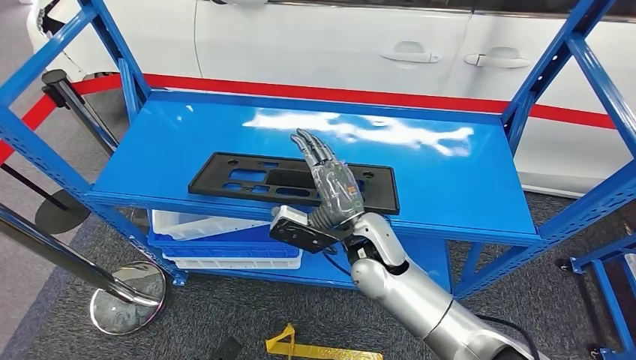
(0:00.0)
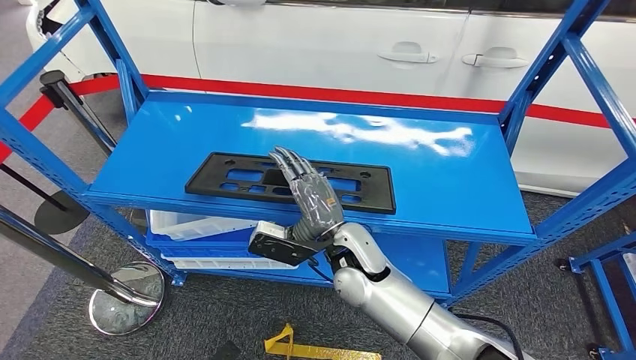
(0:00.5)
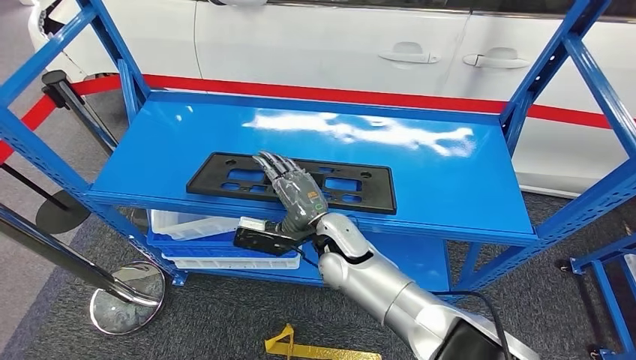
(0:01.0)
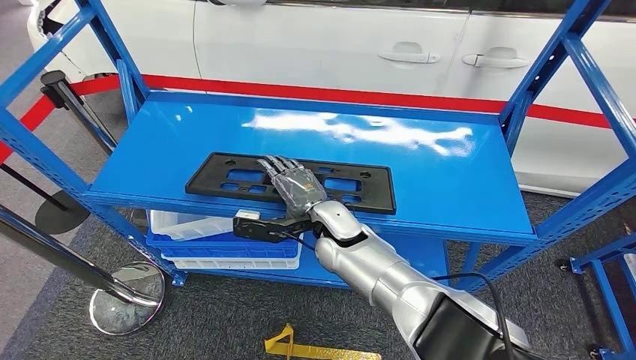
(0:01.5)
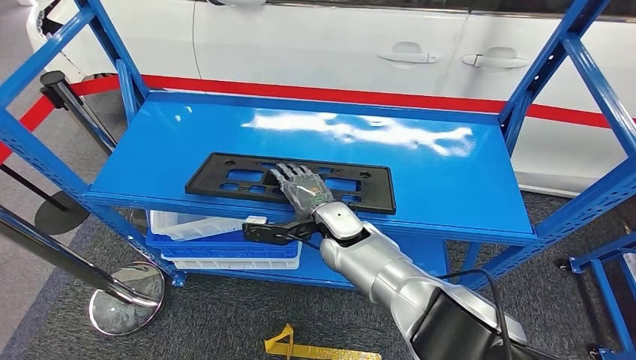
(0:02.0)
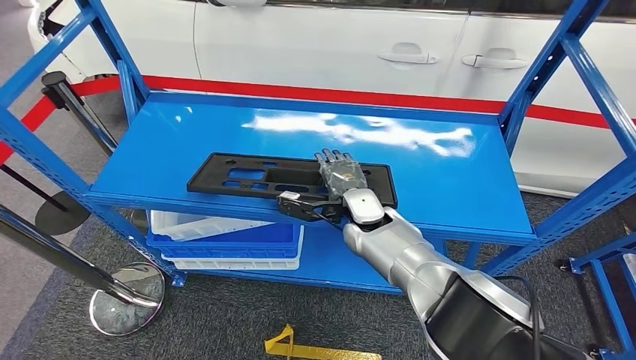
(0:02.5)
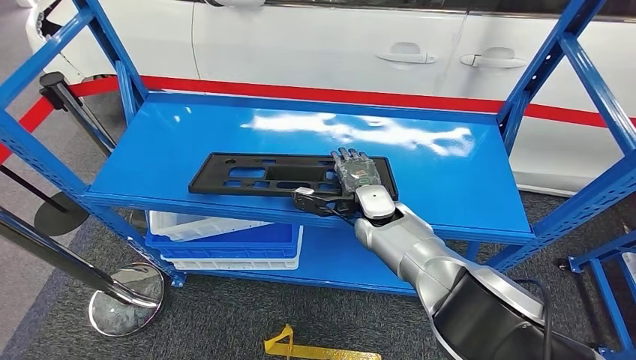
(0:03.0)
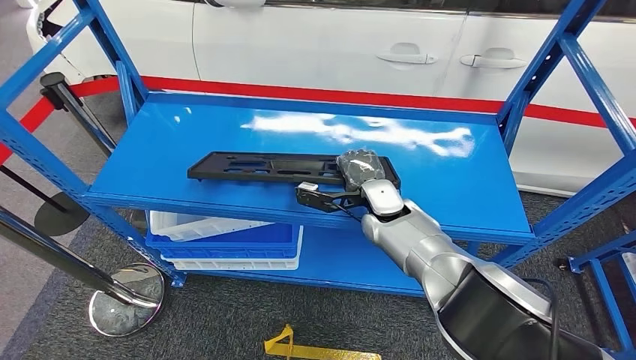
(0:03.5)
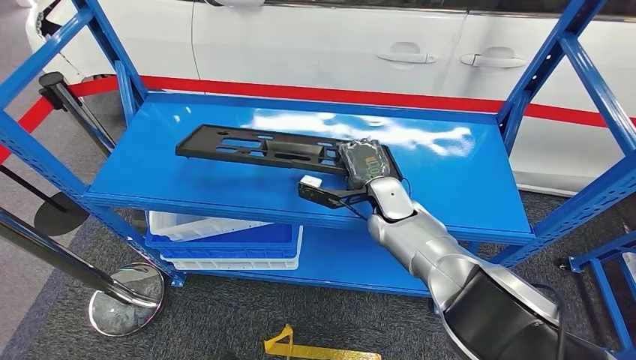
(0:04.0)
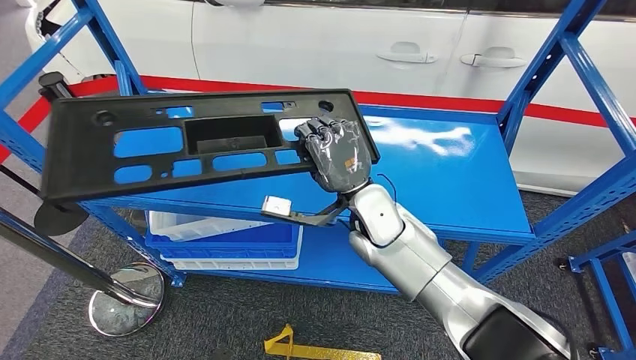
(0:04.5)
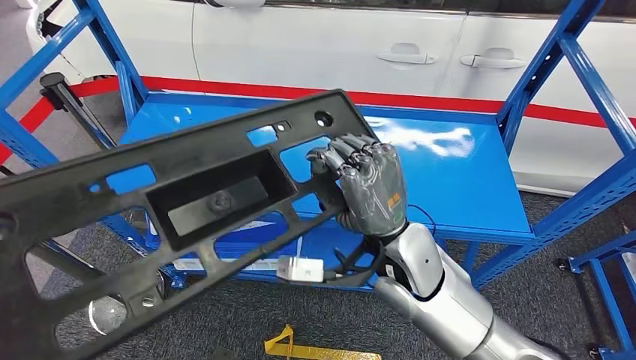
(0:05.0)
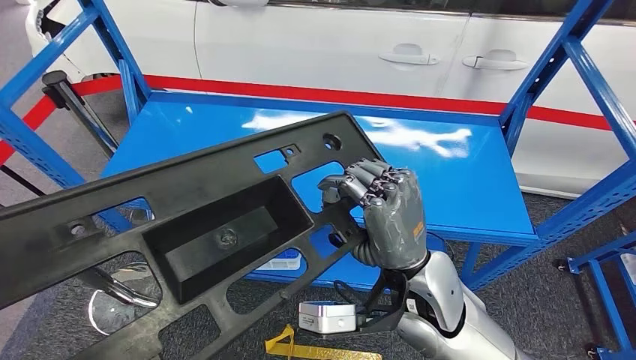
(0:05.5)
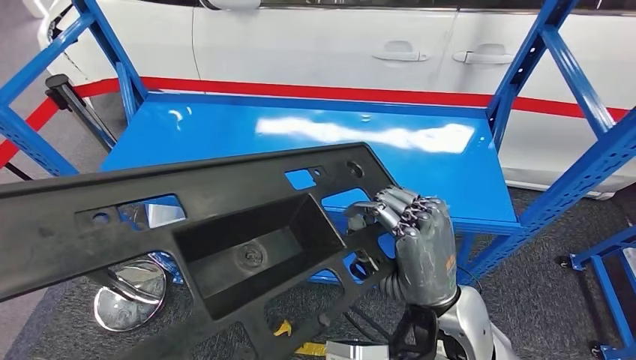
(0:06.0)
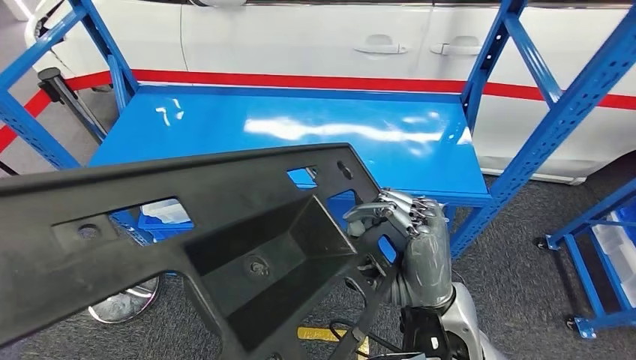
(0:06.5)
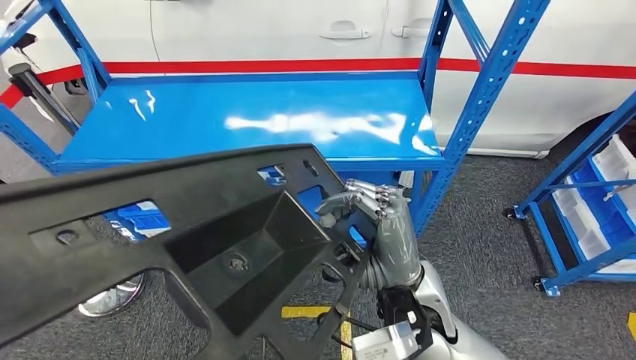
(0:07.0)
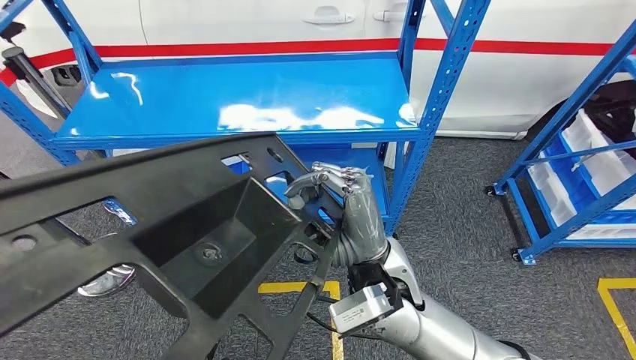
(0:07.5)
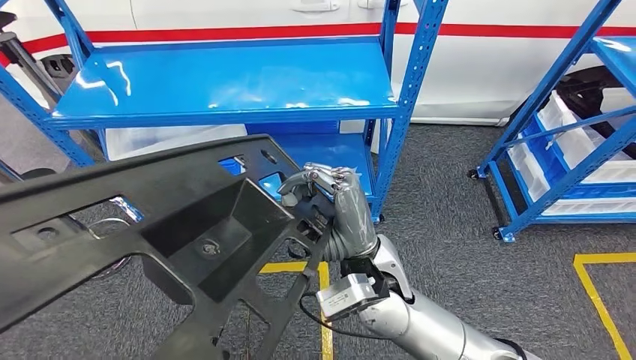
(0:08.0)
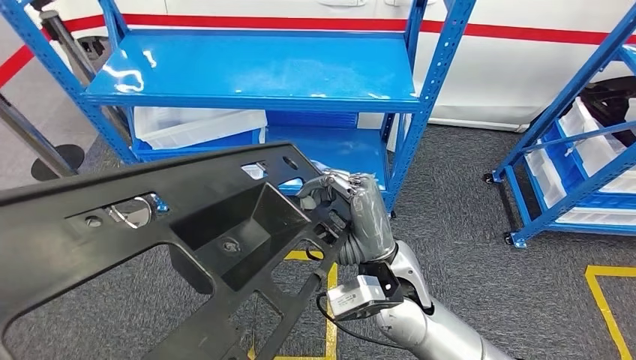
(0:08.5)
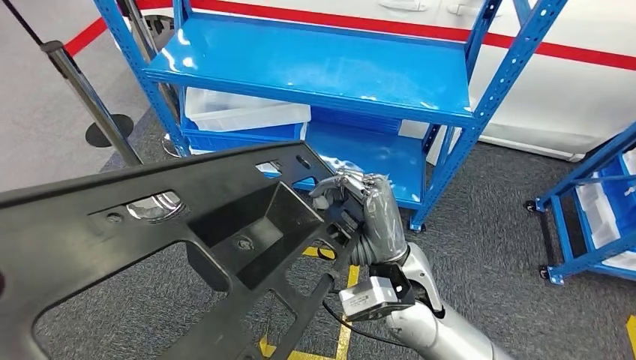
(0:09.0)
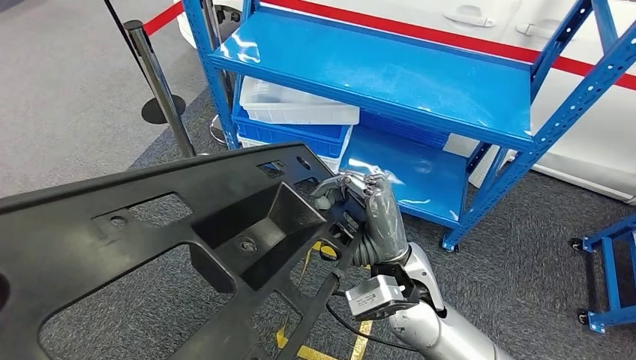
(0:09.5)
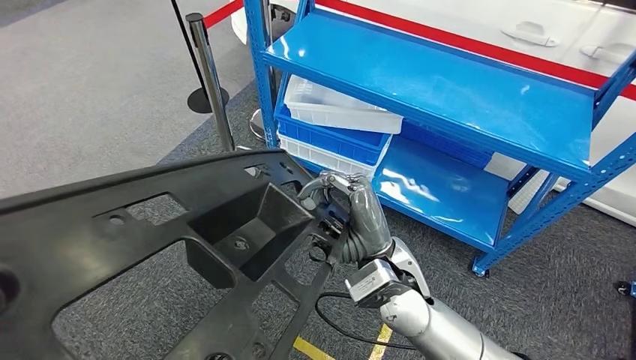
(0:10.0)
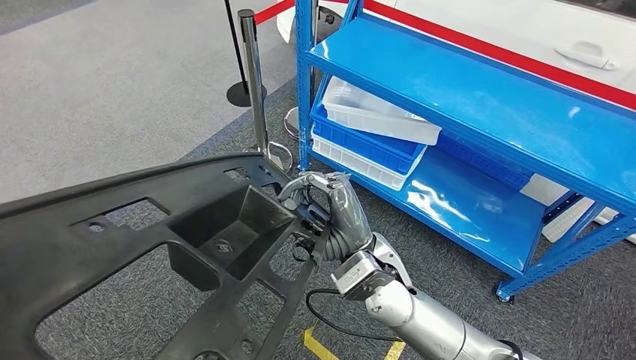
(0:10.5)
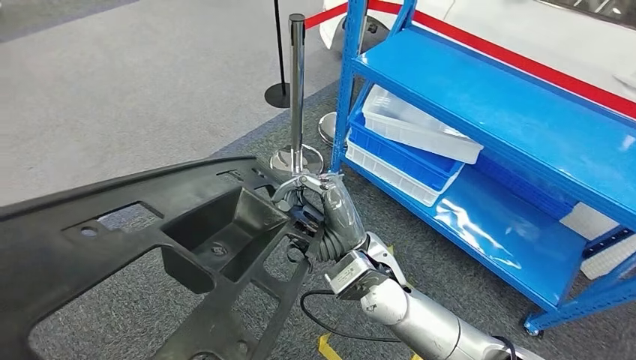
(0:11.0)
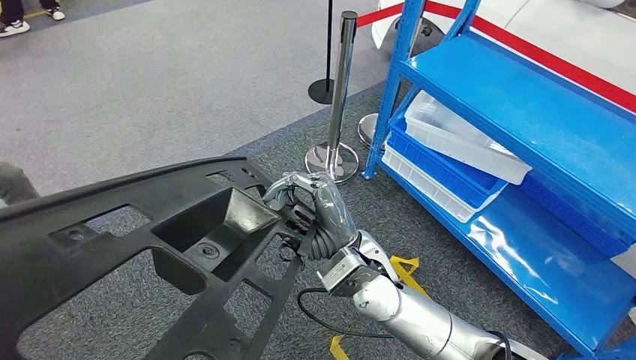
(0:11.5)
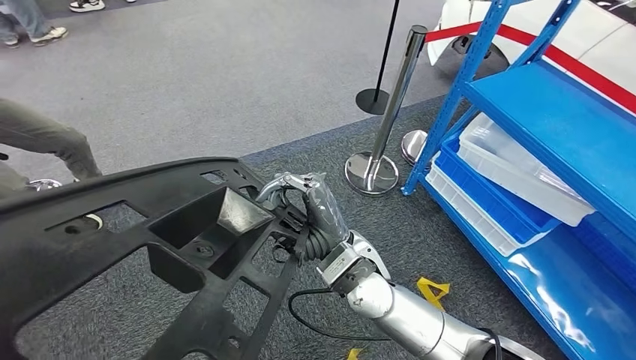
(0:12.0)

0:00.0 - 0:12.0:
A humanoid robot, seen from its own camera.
Step, 0:00.0 - 0:05.5: Pick up the large material from the shelf.
0:00.0 - 0:02.0: The right hand travels forward and to the left by some 10 cm.
0:02.0 - 0:04.0: The right hand goes approximately 10 cm to the right.

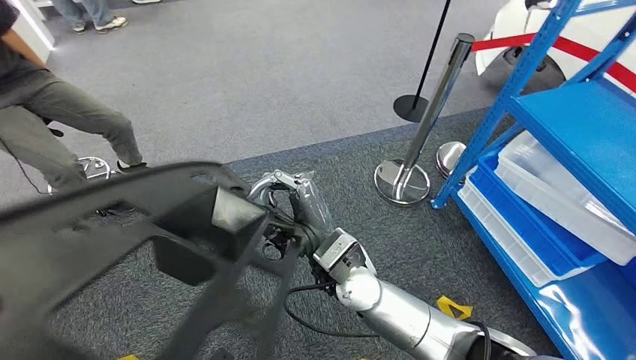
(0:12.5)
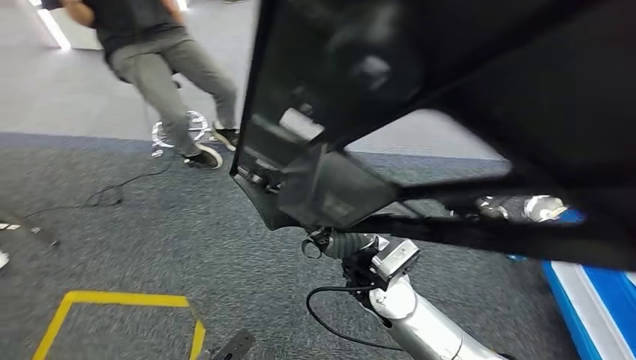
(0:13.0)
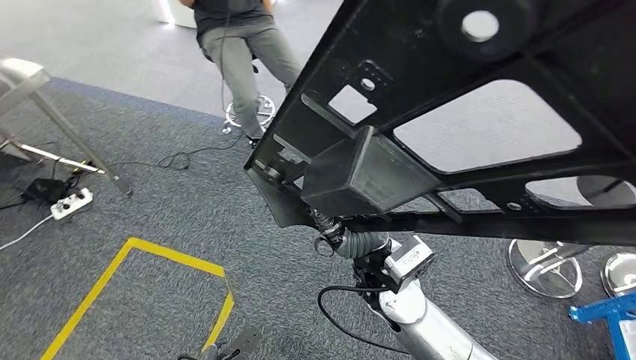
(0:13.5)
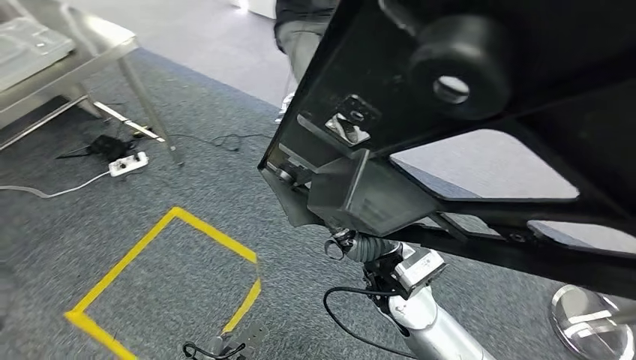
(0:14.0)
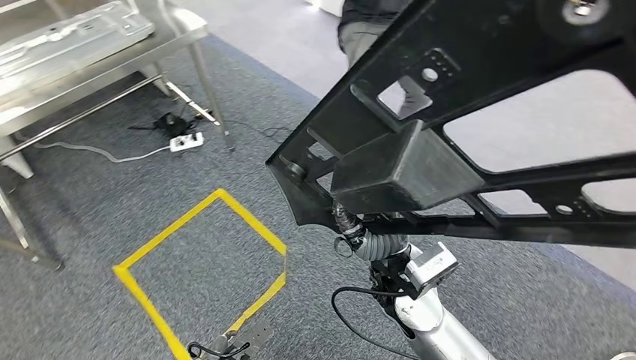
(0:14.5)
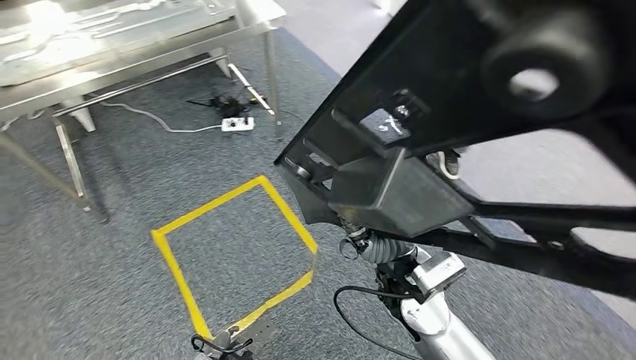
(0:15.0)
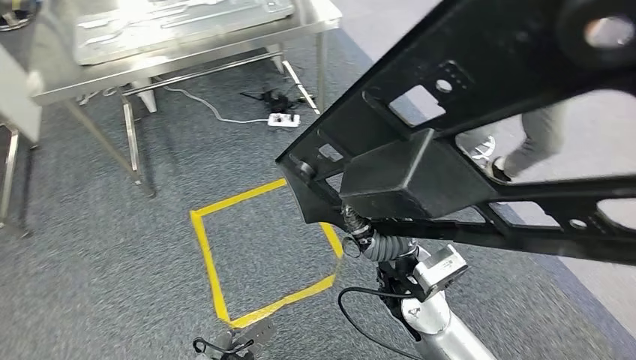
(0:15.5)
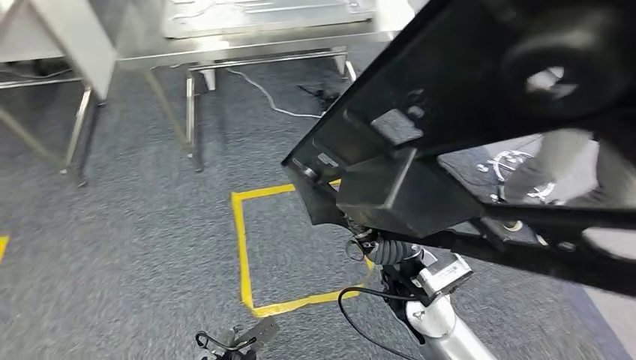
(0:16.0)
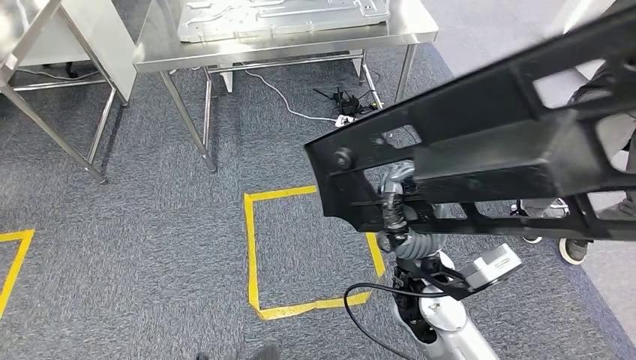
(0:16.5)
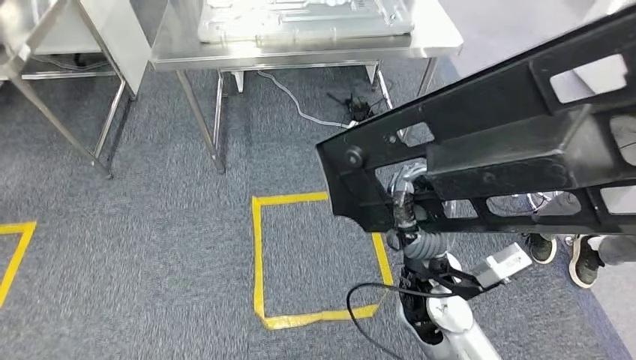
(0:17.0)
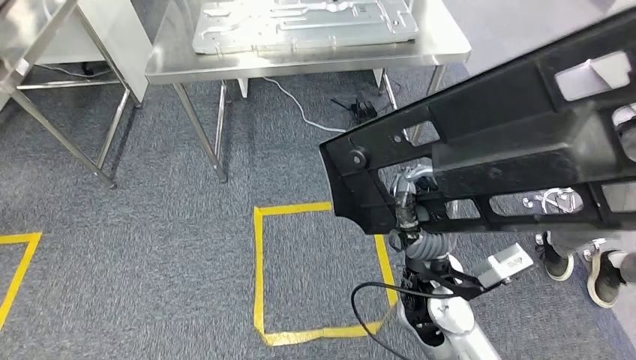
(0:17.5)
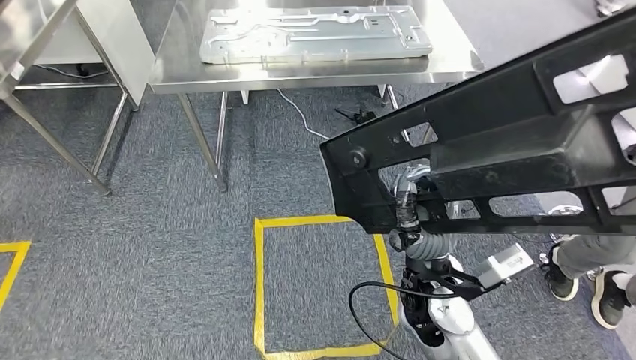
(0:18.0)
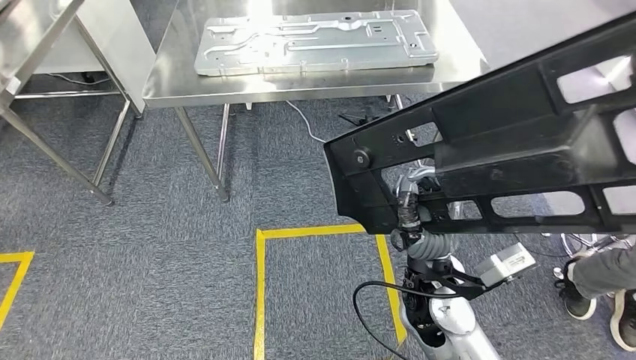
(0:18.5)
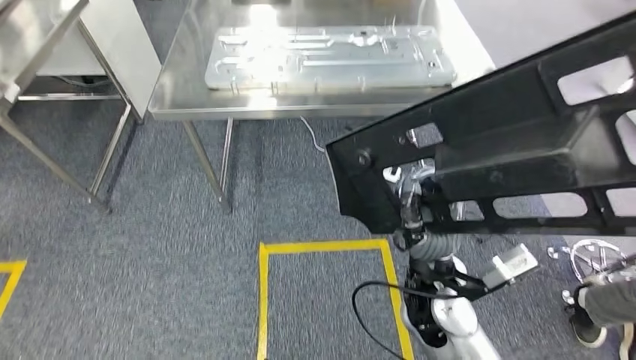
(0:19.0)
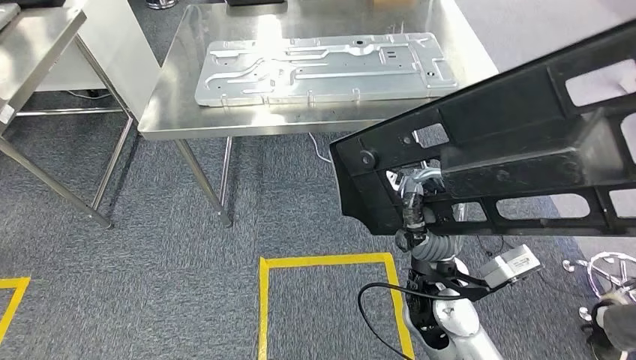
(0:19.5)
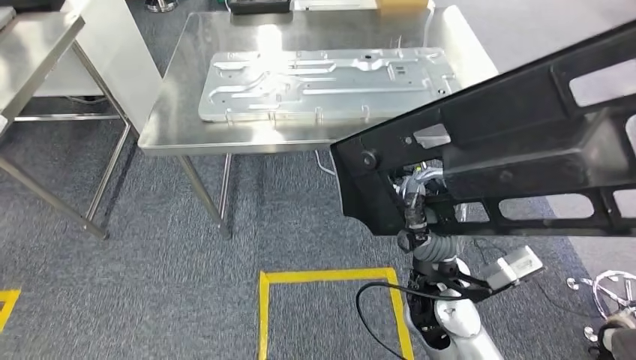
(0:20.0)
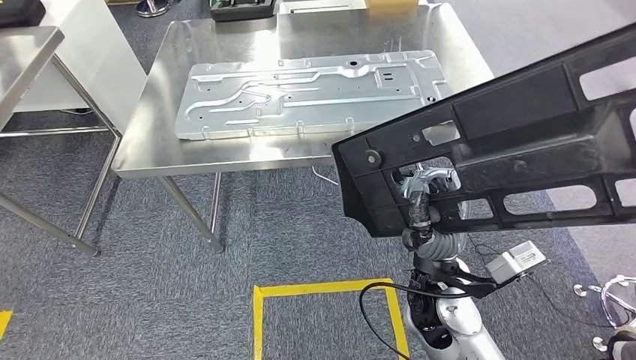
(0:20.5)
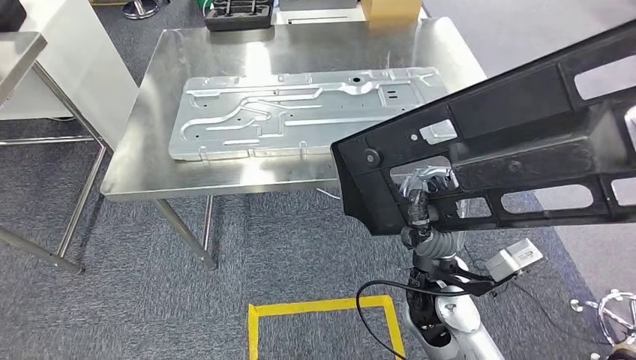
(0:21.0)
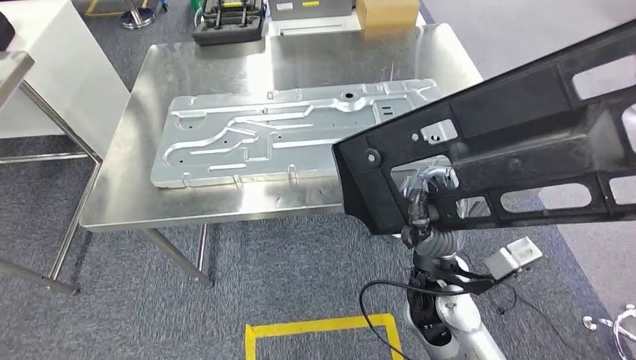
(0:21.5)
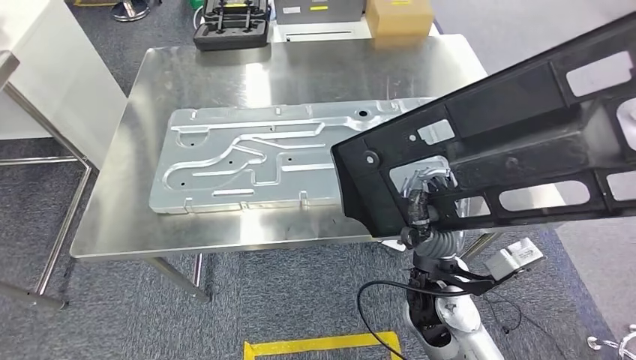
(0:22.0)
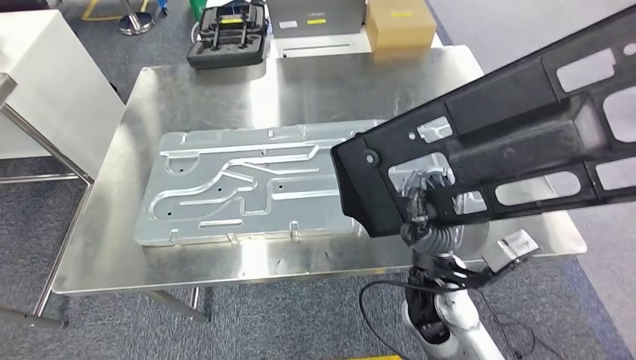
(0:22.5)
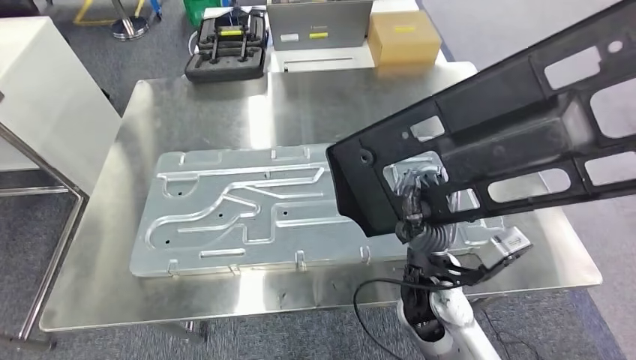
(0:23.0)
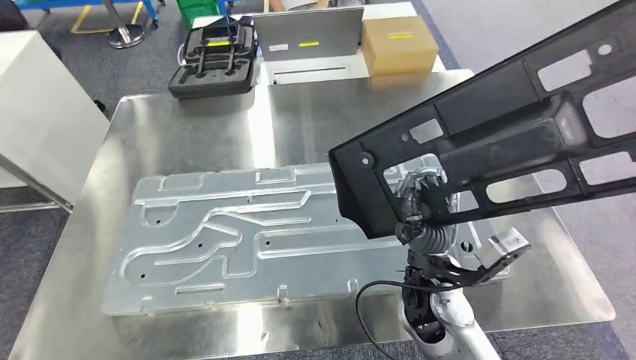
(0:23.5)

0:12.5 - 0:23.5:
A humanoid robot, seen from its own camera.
Step, 0:12.5 - 0:20.5: Move the large material to the front of the workbench.
